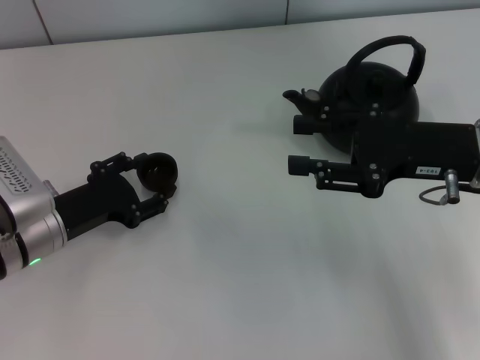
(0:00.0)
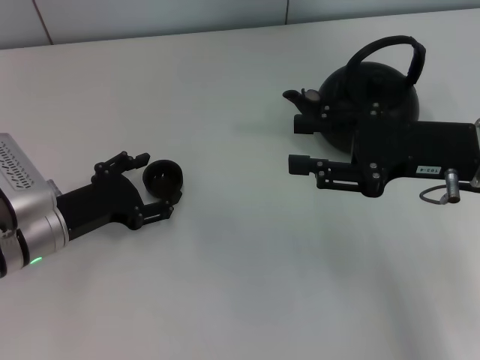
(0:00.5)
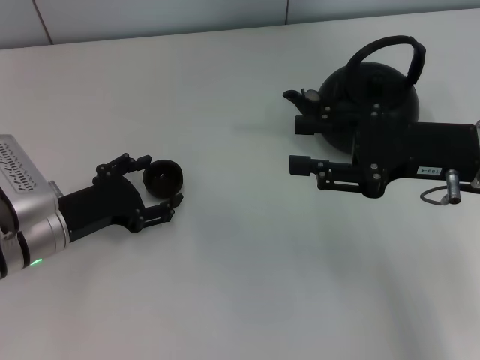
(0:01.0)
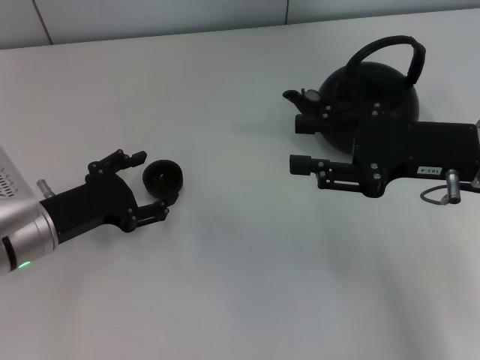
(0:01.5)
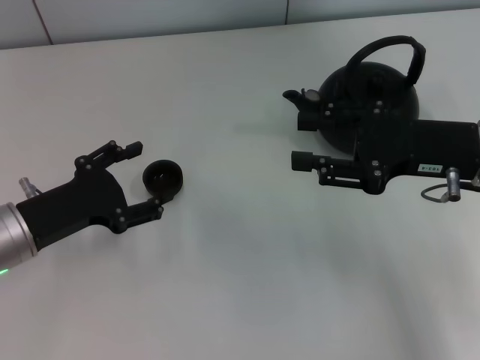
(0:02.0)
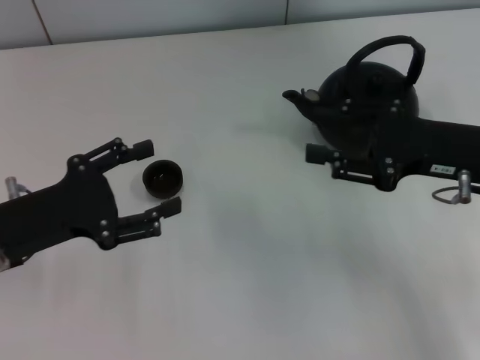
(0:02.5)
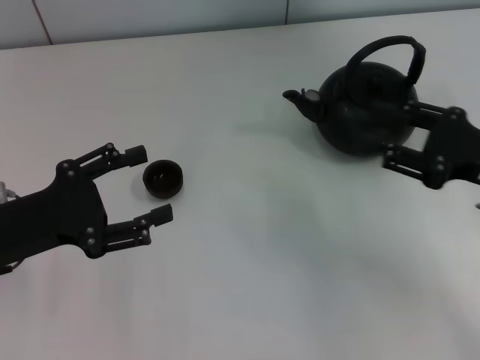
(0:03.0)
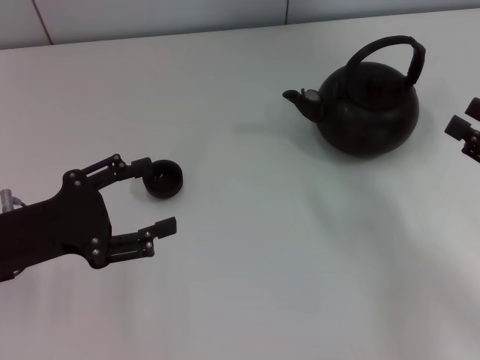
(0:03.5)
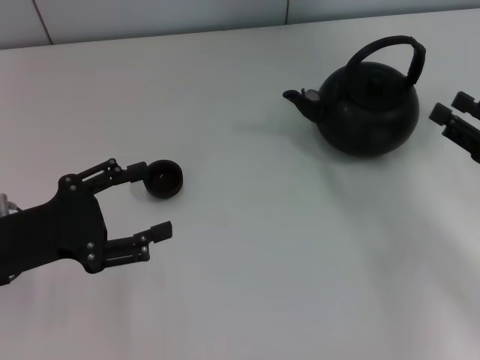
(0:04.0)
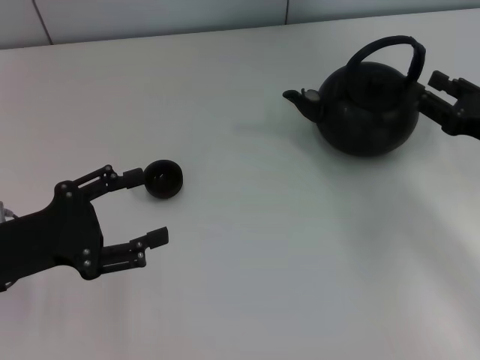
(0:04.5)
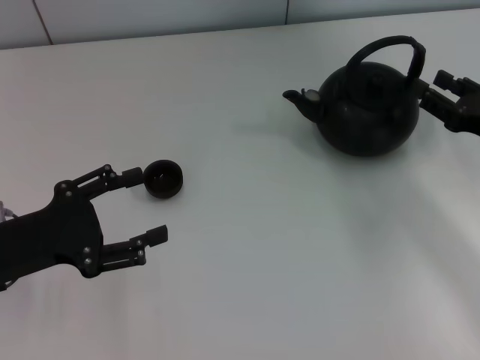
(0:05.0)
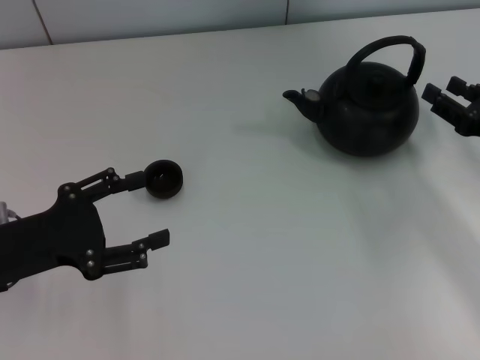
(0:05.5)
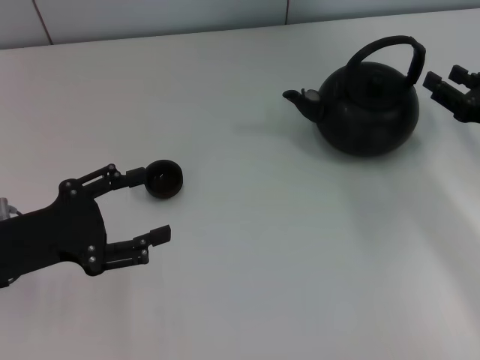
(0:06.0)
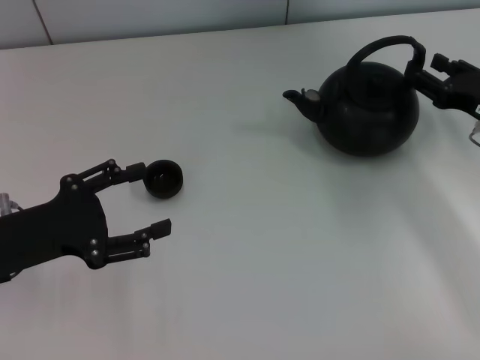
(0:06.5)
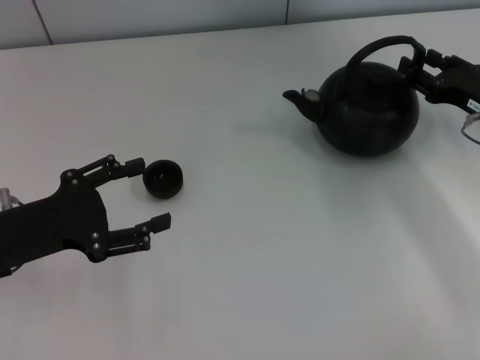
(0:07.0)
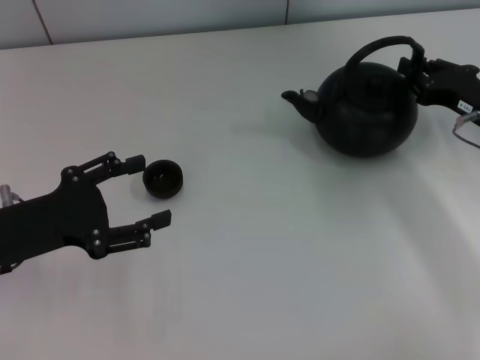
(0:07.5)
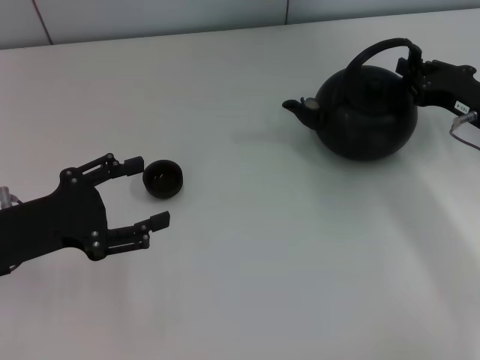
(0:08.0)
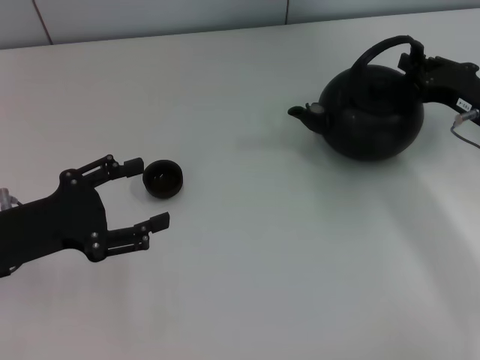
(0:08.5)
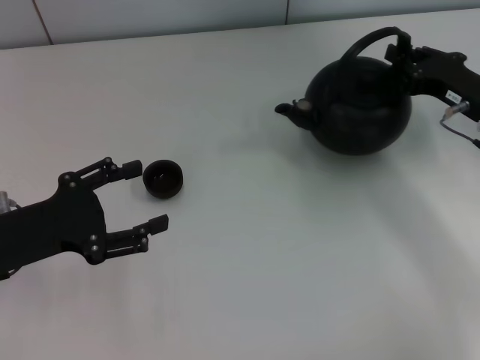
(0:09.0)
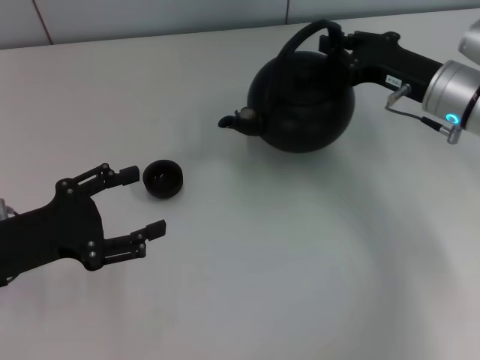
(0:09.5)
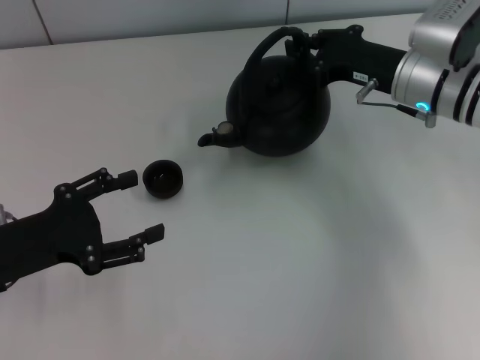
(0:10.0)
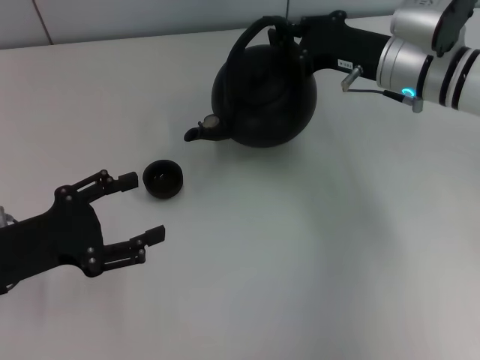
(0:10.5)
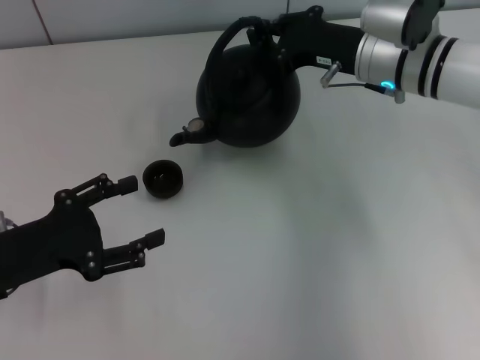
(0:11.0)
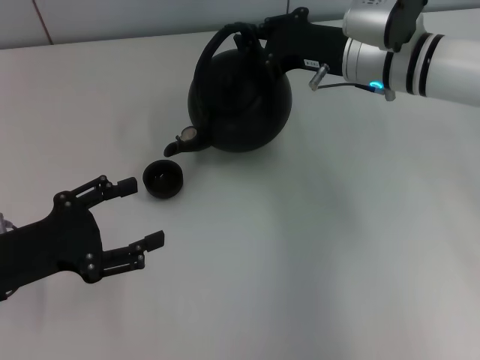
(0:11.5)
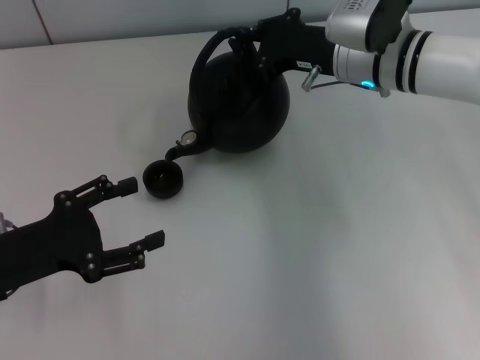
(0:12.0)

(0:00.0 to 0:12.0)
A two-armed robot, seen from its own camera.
Task of the whole recording: Grasp the handle of the teapot with one hand and pour tea into the teacup.
Step, 0:02.0 - 0:09.0: Pick up the teapot with the right gripper.
0:00.0 - 0:02.0: The left gripper opens.
0:02.0 - 0:04.0: The right gripper is displaced to the right and downward by about 10 cm. The left gripper moves roughly 5 cm.
0:04.0 - 0:06.0: The right gripper moves forward, approximately 5 cm.
0:06.0 - 0:08.0: The right gripper closes its fingers.
0:08.0 - 0:10.0: The right gripper moves to the left and forward, about 10 cm.
0:10.0 - 0:12.0: The right gripper travels to the left by approximately 5 cm.

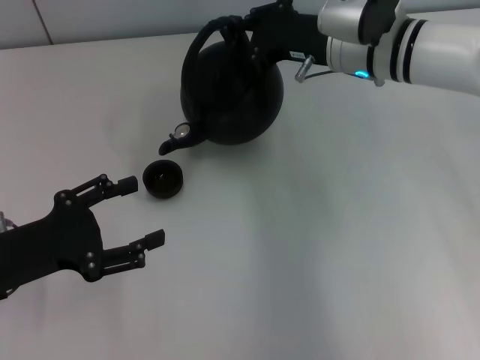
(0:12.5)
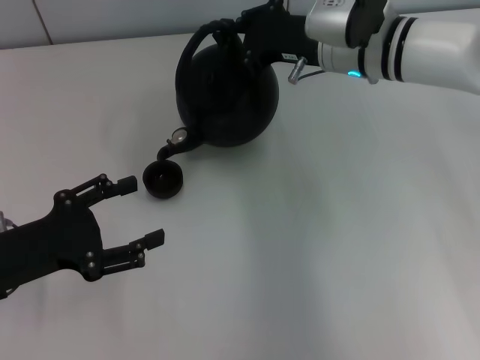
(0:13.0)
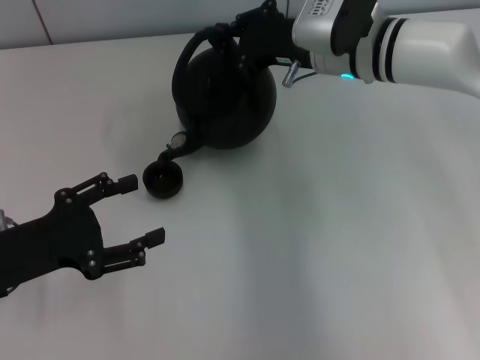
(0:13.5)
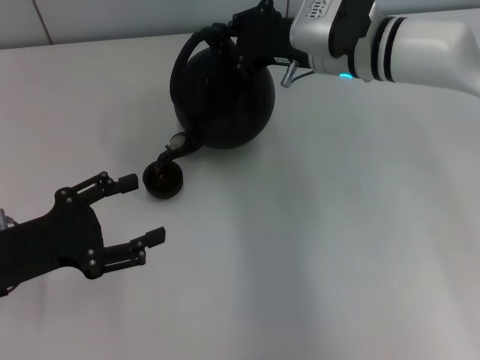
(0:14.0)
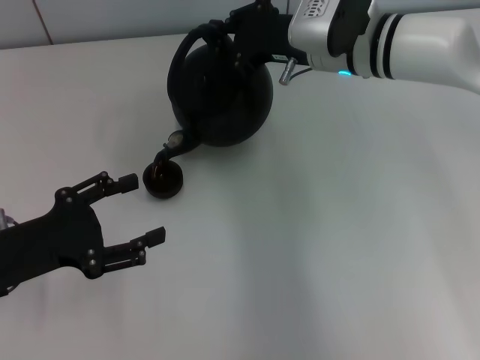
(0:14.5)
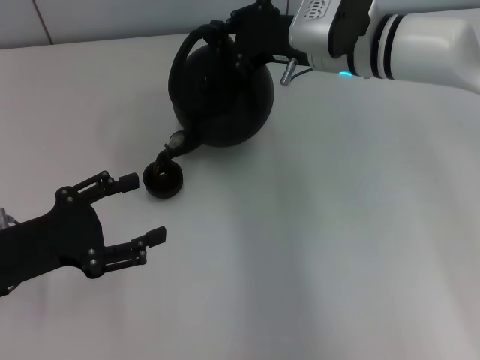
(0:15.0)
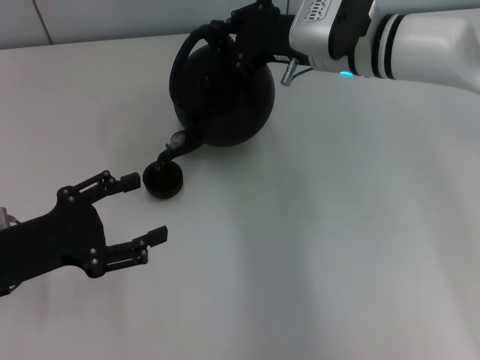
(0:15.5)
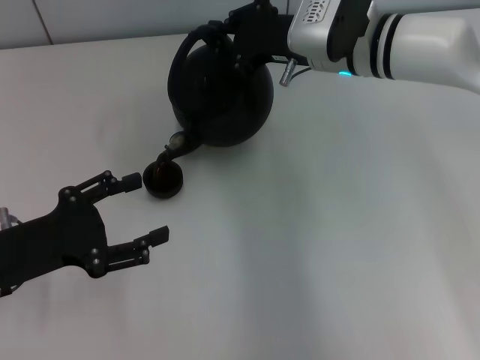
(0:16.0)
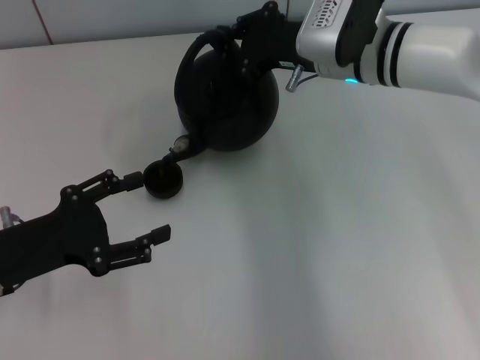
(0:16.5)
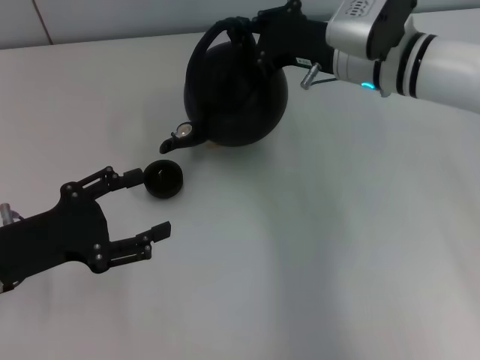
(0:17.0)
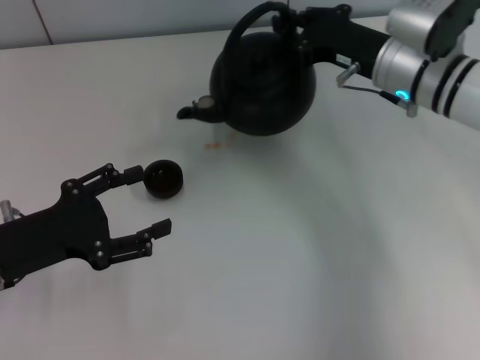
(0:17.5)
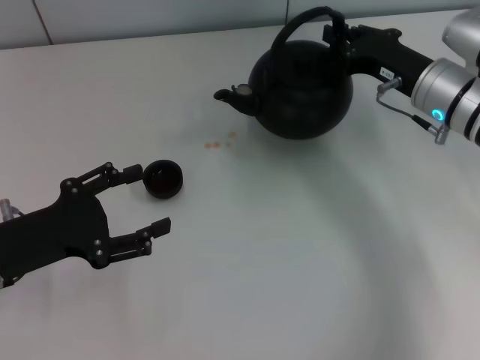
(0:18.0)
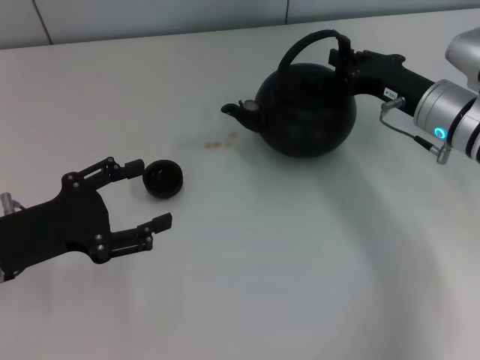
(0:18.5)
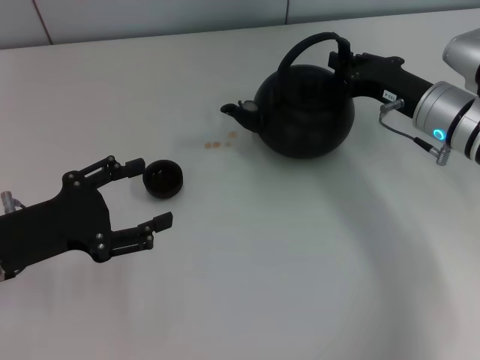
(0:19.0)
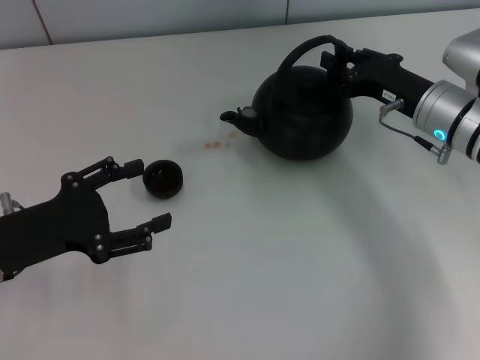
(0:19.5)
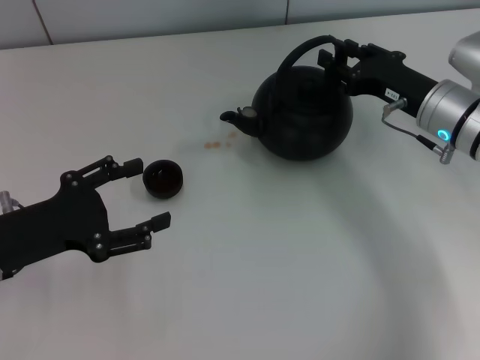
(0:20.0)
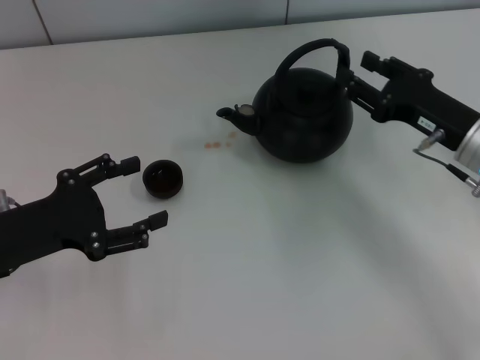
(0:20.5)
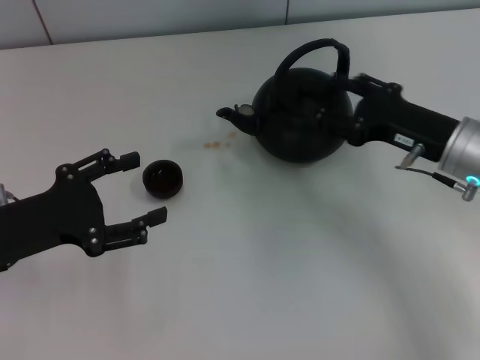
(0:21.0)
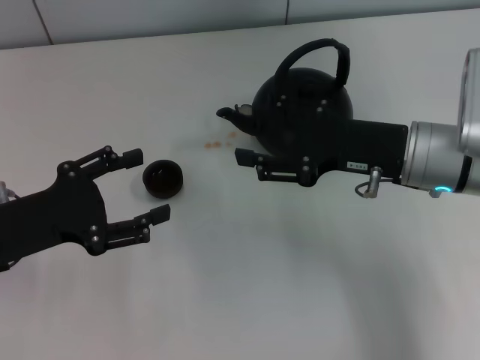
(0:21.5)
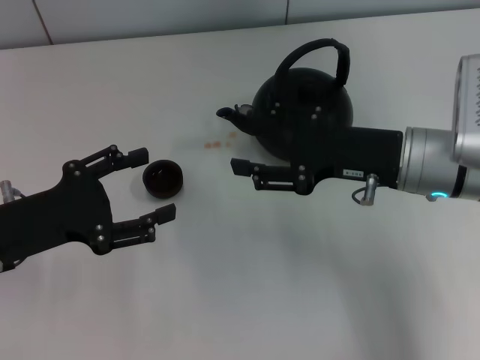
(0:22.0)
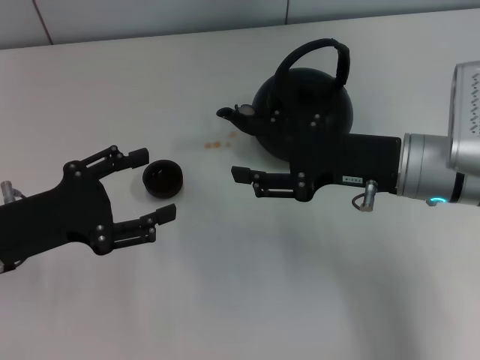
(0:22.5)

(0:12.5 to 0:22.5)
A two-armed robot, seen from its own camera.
Task of the whole recording: Grasp the handle of the teapot with one hand and pour tea into the teacup.
Step, 0:17.5 - 0:19.0: Put down the teapot with the right gripper.
0:12.5 - 0:14.5: The grippers stay close to where they were, moving slightly.
0:14.5 - 0:16.5: Neither gripper changes place.
0:16.5 - 0:18.5: The right gripper is displaced to the right, downward and backward by about 15 cm.
0:18.5 - 0:20.5: The right gripper is displaced backward by roughly 5 cm, and opens up.
0:20.5 - 0:22.5: The right gripper heads to the left, covering roughly 5 cm.
